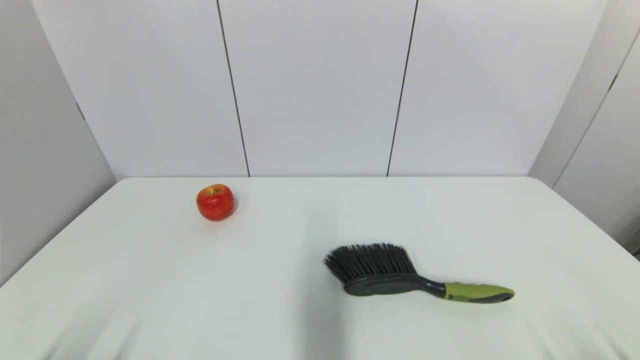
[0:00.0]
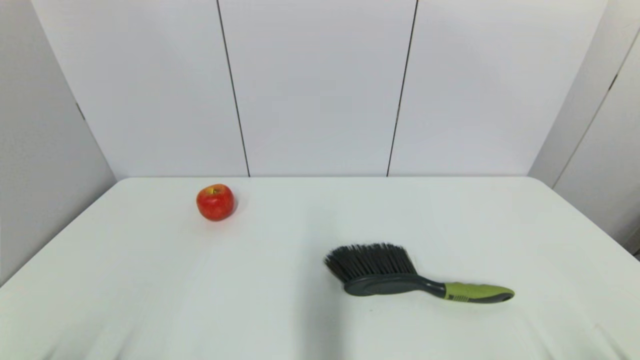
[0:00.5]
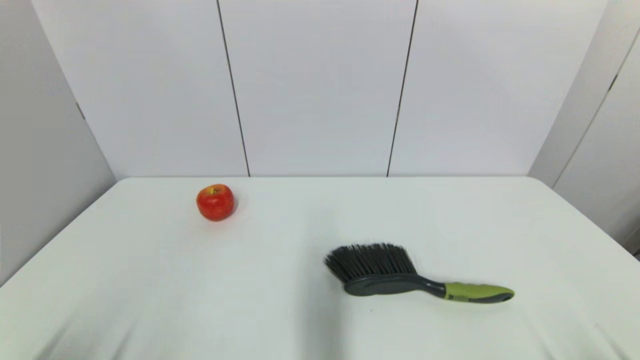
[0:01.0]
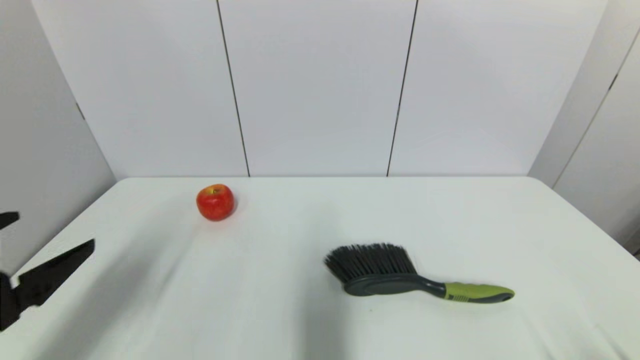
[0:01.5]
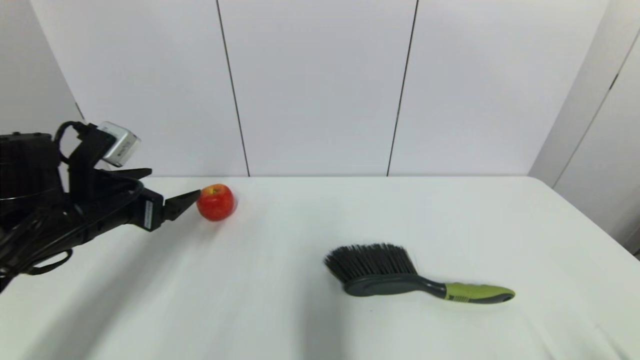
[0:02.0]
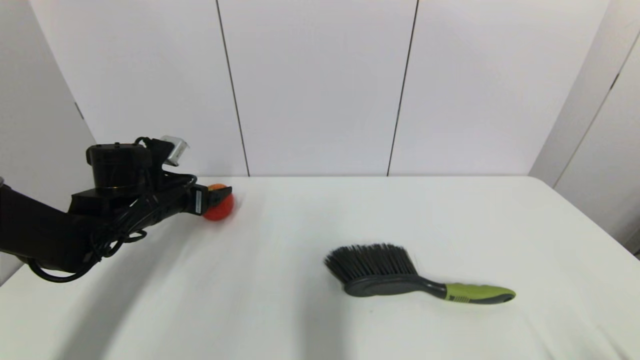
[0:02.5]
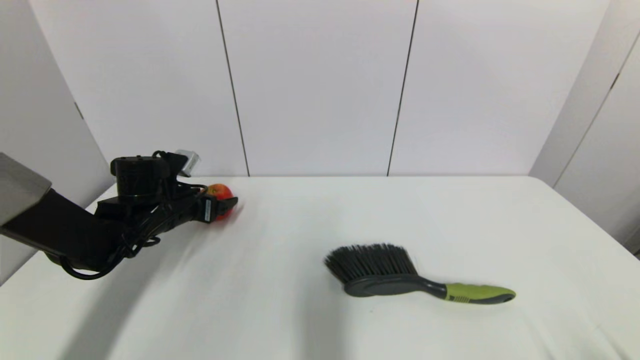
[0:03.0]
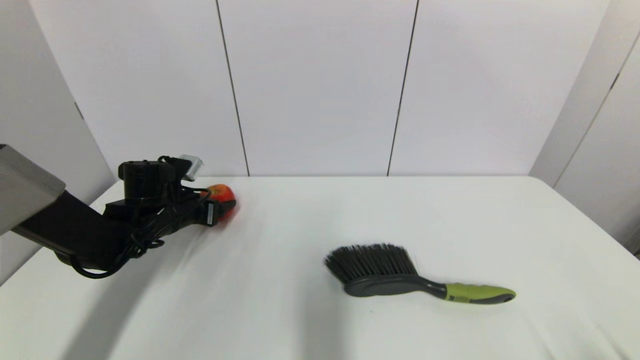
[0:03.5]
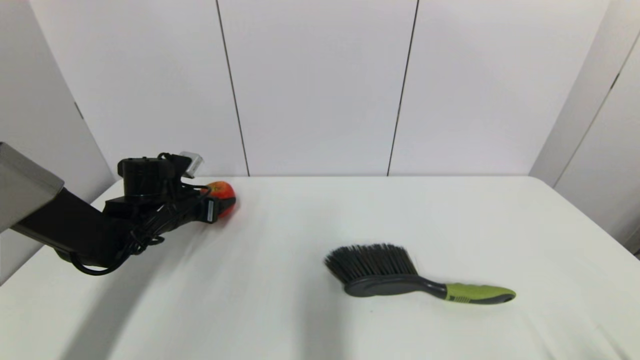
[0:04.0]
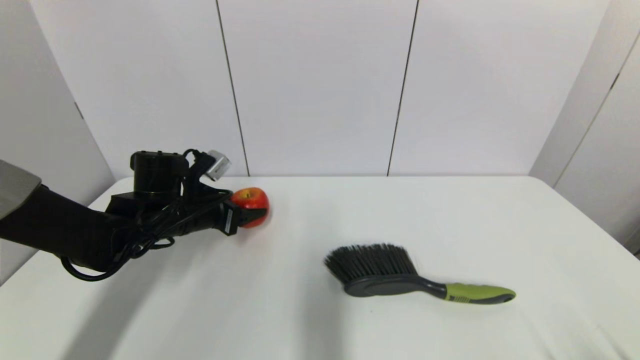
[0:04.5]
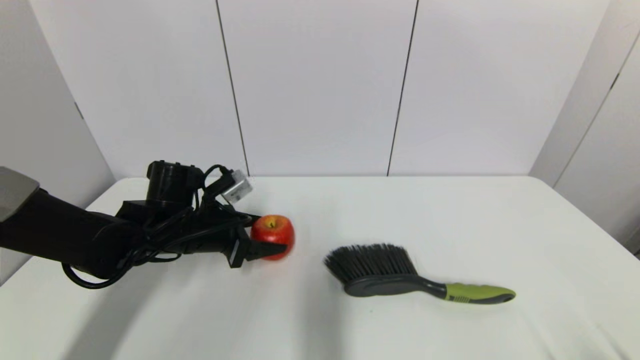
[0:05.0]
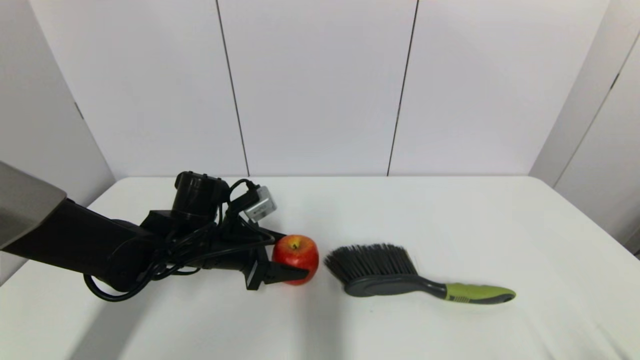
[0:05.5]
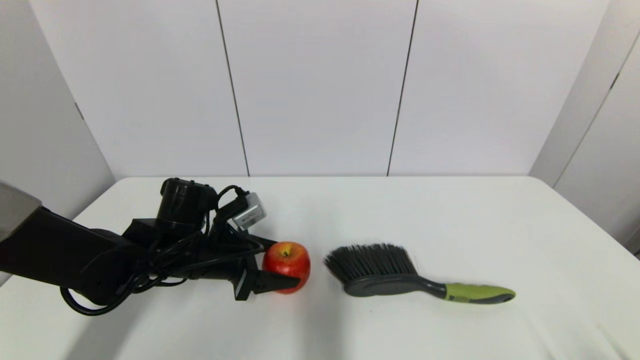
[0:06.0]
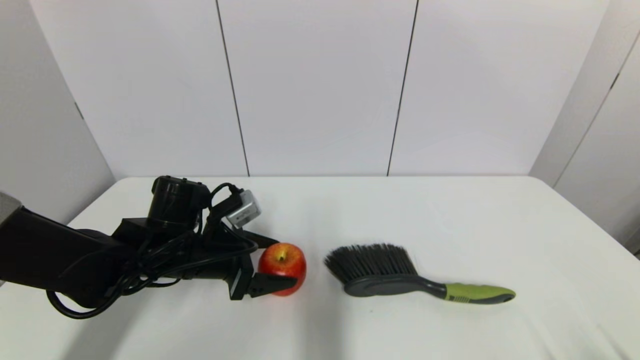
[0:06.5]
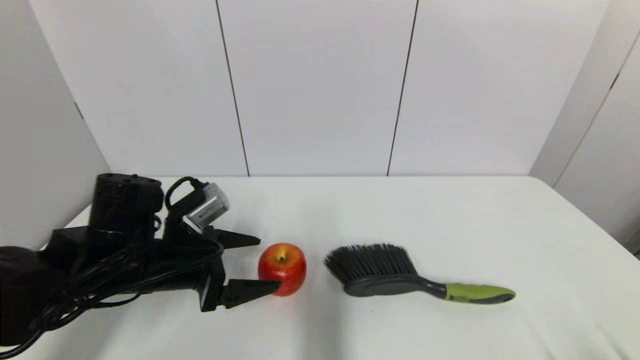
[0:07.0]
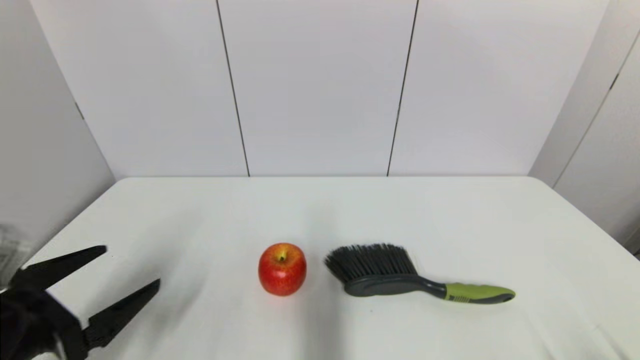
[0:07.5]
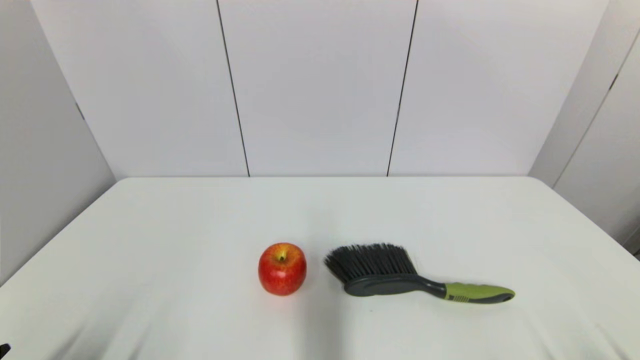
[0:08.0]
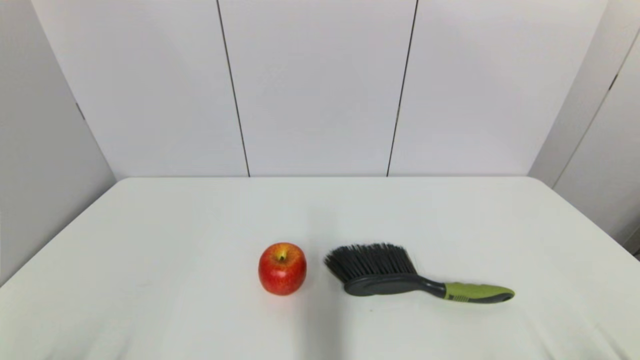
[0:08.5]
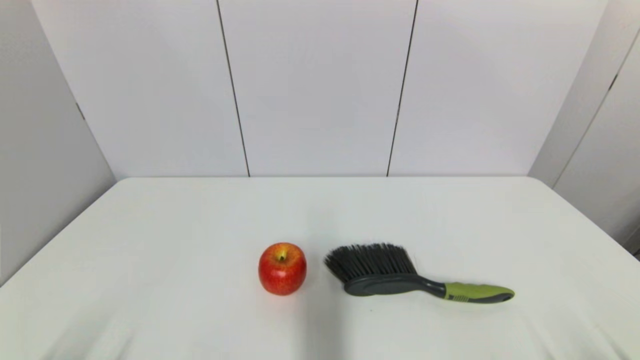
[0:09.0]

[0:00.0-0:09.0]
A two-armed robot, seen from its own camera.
Task of the whole recording: put the apple in the designated position.
Step, 0:01.5 to 0:03.5: Grasp the apple with left gripper.
Step, 0:04.0 to 0:07.0: Place the apple on the table with left gripper.
0:00.0 to 0:02.0: The left gripper goes approximately 30 cm forward and upward.
0:02.0 to 0:04.5: The left gripper is displaced forward, downward and to the right by approximately 10 cm, and closes.
0:04.5 to 0:07.0: The left gripper is displaced backward by about 10 cm, and opens.
0:07.0 to 0:09.0: The left gripper travels backward and to the left by about 25 cm.
